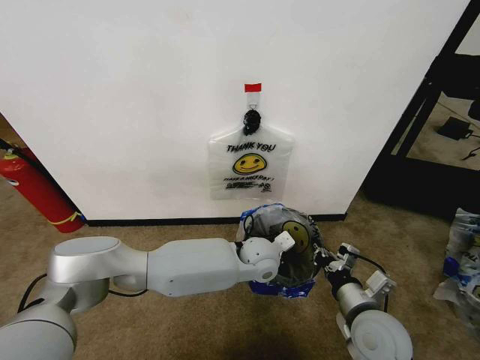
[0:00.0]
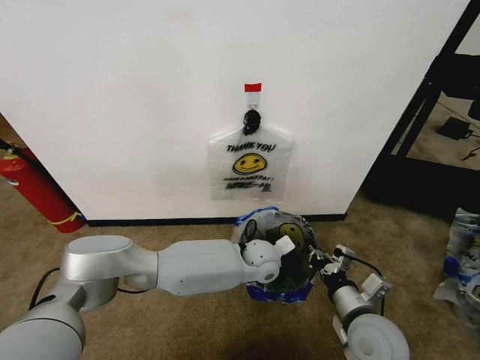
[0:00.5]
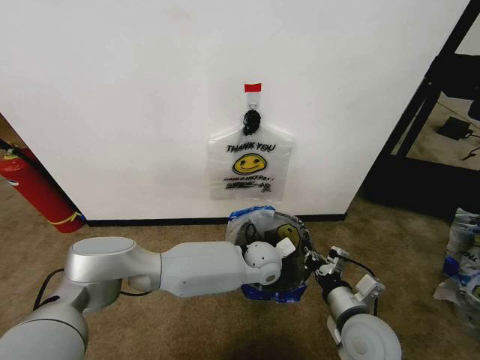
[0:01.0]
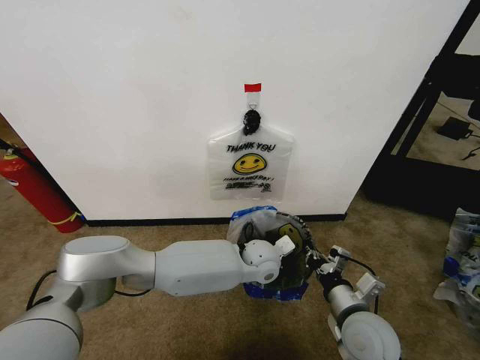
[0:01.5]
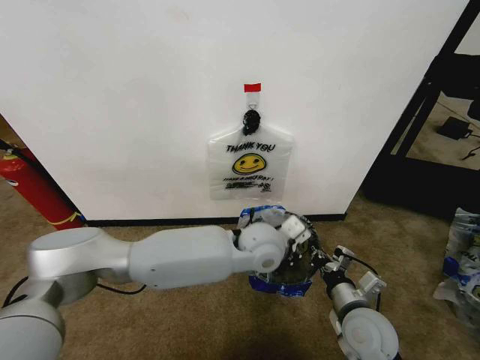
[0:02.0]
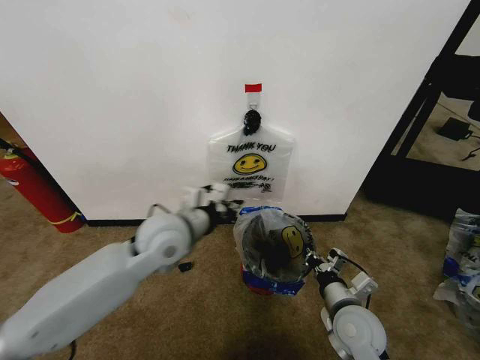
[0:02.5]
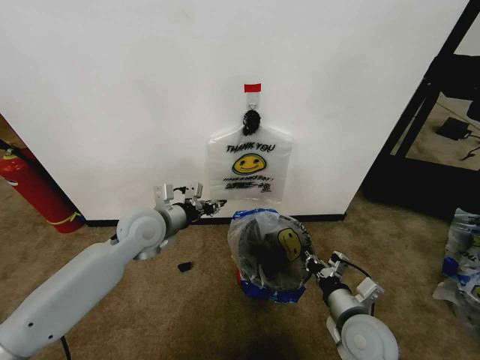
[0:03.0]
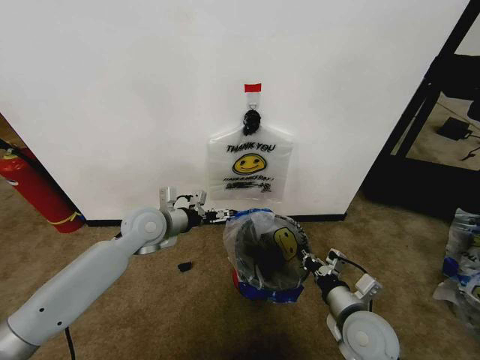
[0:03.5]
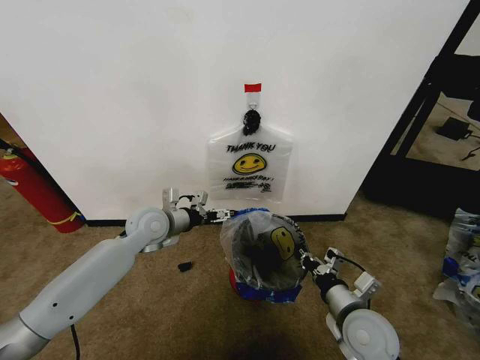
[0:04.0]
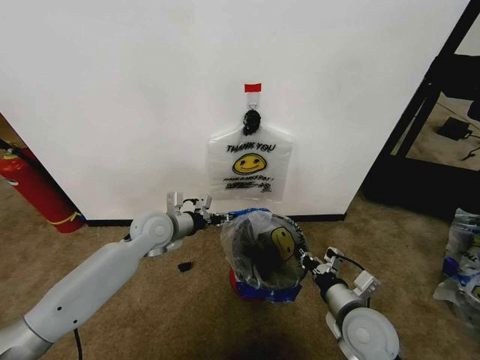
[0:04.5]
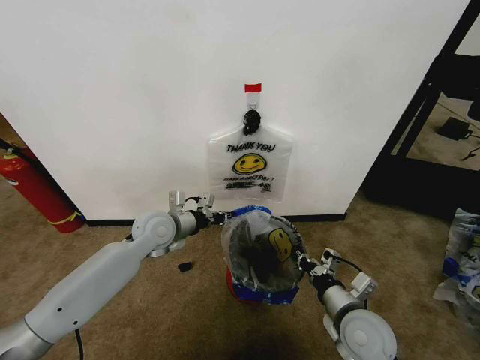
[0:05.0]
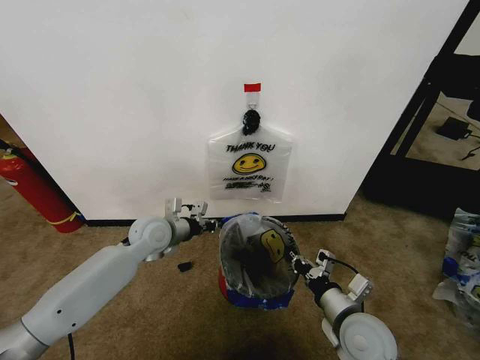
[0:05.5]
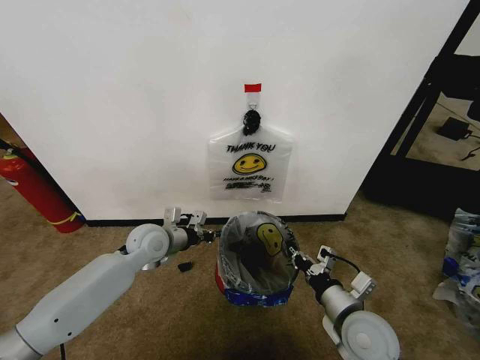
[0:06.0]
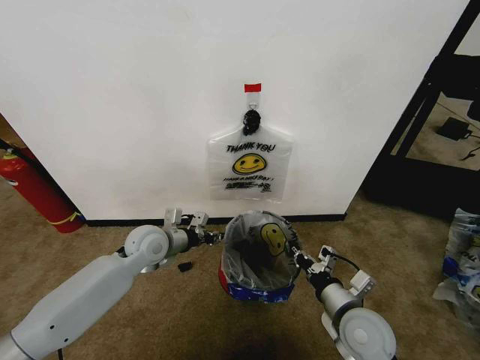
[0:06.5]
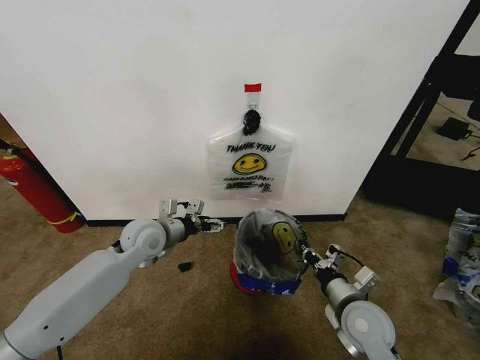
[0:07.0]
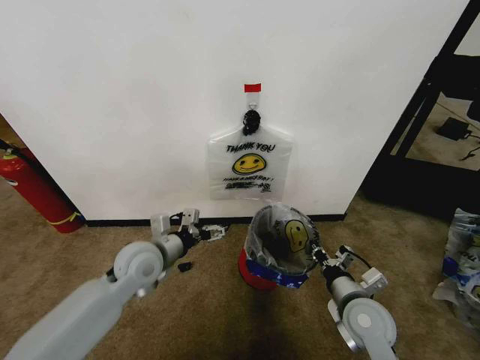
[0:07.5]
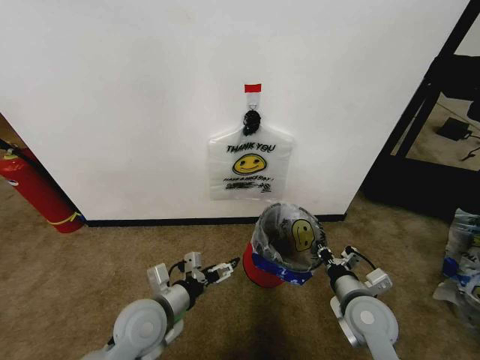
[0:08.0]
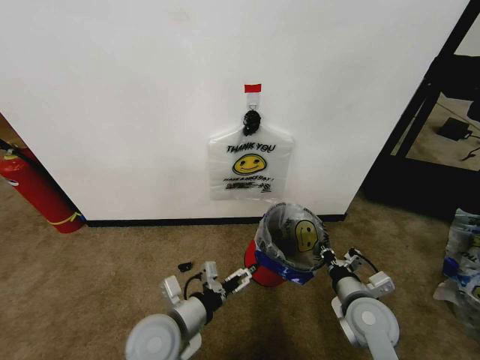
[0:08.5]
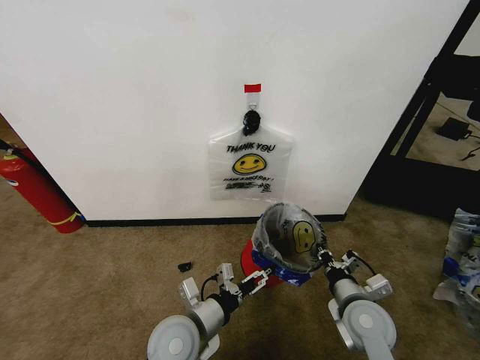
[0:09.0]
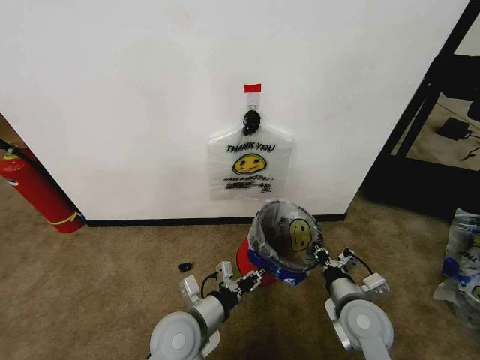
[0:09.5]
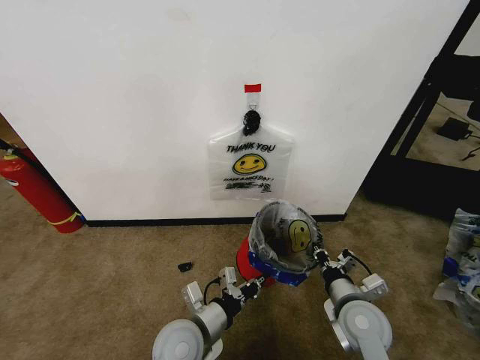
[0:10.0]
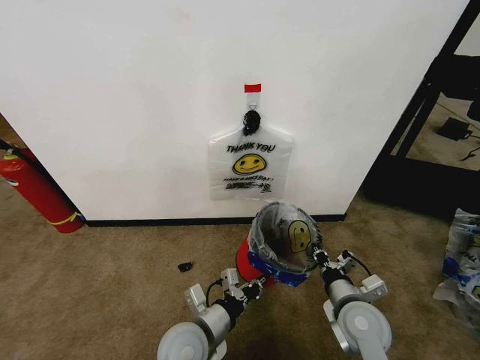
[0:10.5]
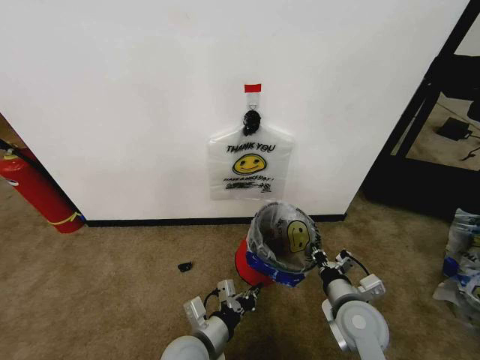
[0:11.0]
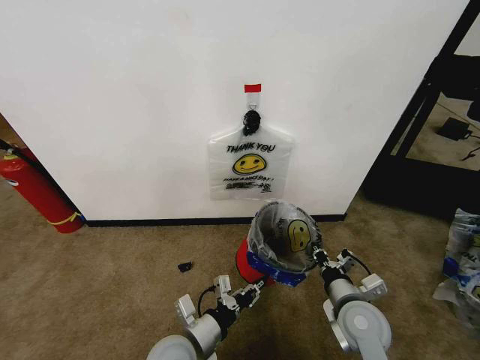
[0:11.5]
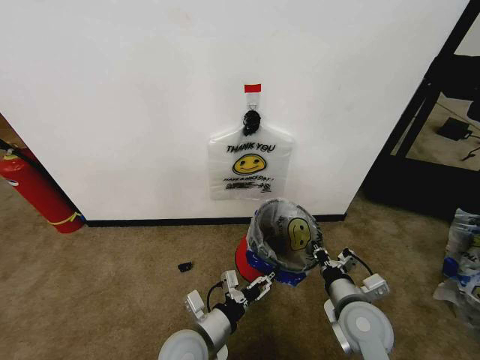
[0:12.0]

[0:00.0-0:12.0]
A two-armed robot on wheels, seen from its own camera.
Task of the whole recording: Pick up the garbage bag from the wall and place it over the trash bin.
0.0 to 2.0 s: The left gripper heads upward, covering approximately 10 cm.
2.0 to 4.0 s: The left gripper travels to the left by some 25 cm, and opens its fingers.
4.0 to 6.0 s: The left gripper closes up.
6.0 to 8.0 s: The left gripper travels backward by roughly 20 cm, and opens up.
8.0 to 10.0 s: The left gripper goes some 5 cm to the right, and closes its fingers.
10.0 to 12.0 s: The left gripper opens.

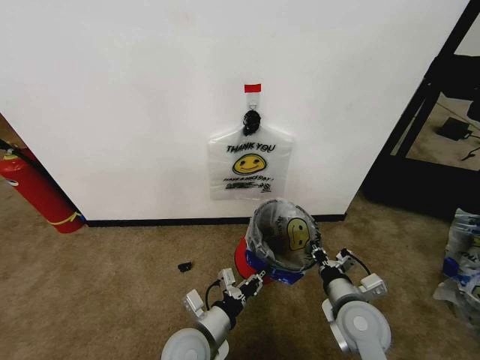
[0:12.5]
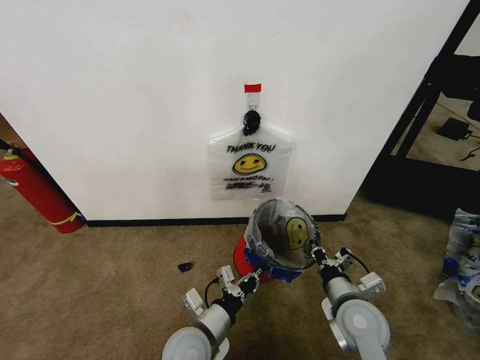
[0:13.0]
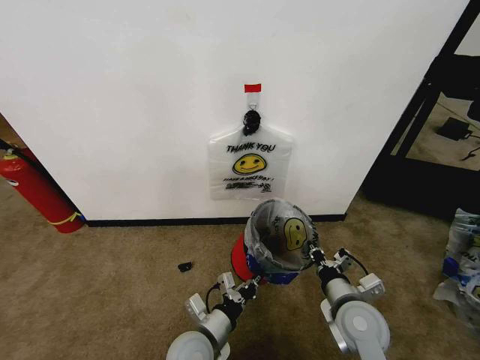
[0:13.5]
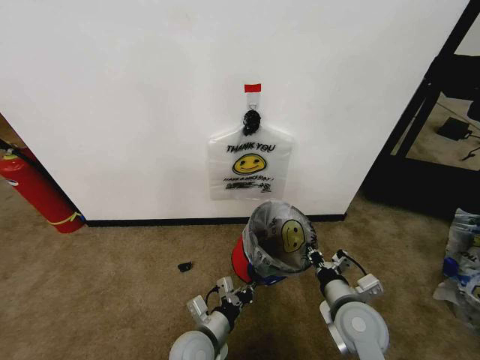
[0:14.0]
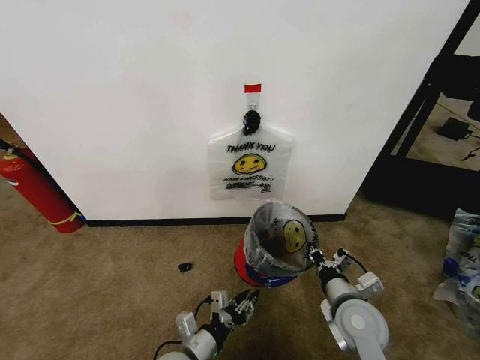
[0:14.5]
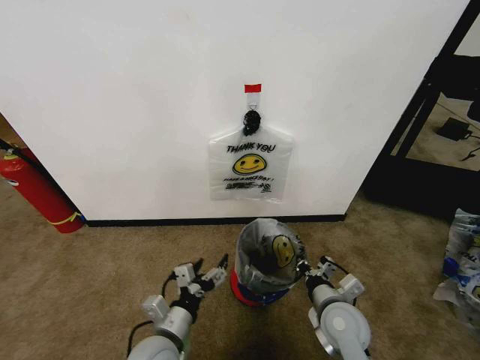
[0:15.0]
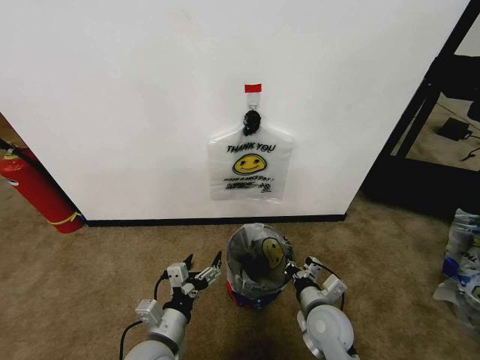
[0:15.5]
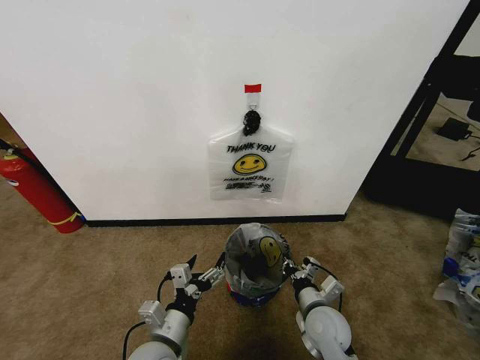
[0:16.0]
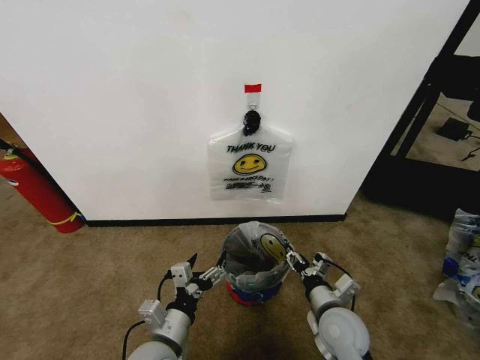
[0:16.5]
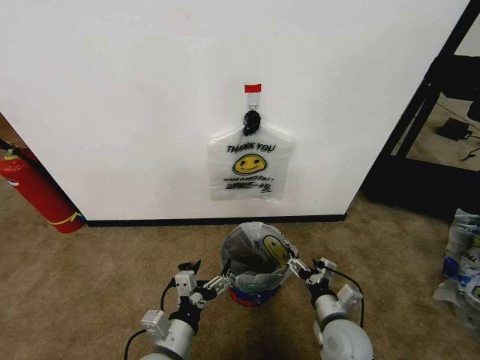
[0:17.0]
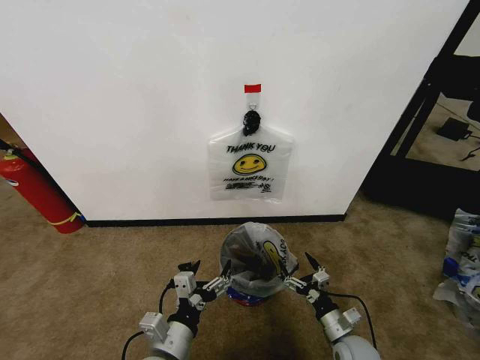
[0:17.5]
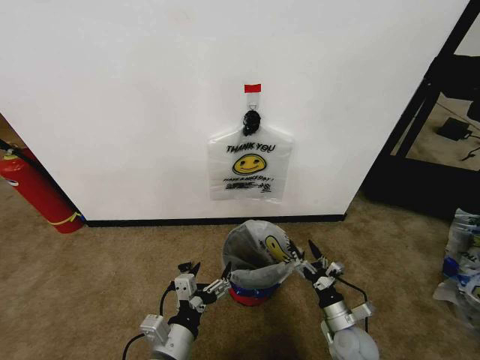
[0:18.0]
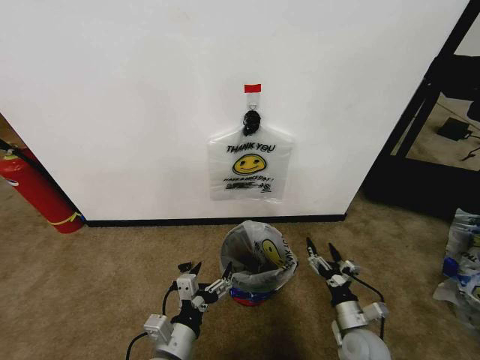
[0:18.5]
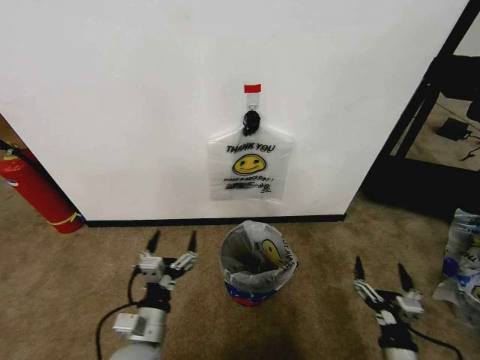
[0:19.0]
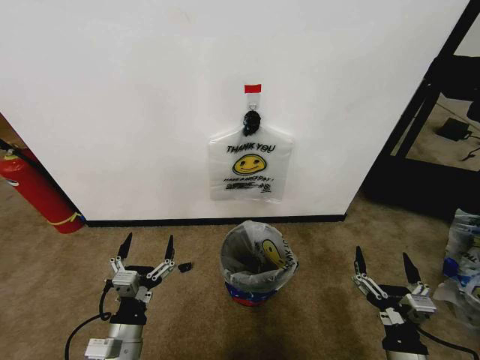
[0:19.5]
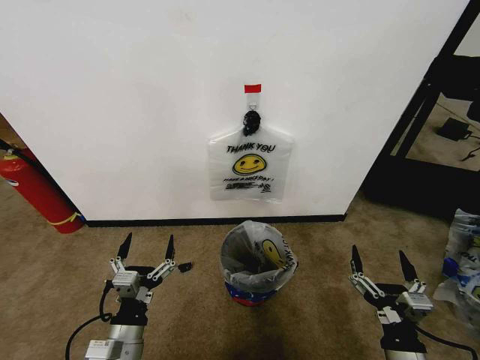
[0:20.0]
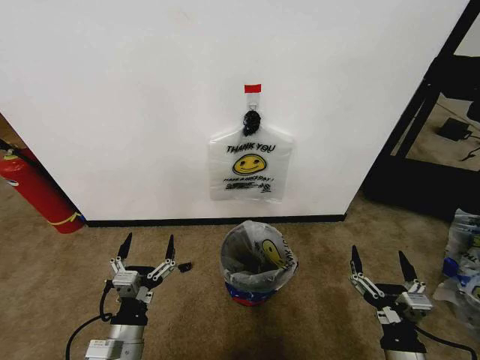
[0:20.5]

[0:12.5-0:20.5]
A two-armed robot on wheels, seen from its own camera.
Task of the whole recording: Pick up the garbage bag from the wall and place it over the trash bin.
12.5 to 14.5 s: The left gripper ends up some 5 cm from where it was.
14.5 to 16.5 s: The left gripper heads upward, covering roughly 5 cm, and opens up. The right gripper opens.
16.5 to 18.5 s: The right gripper shifts about 10 cm downward and to the right.
18.5 to 20.5 s: The right gripper shifts roughly 20 cm backward and upward, while the left gripper goes about 10 cm to the left.

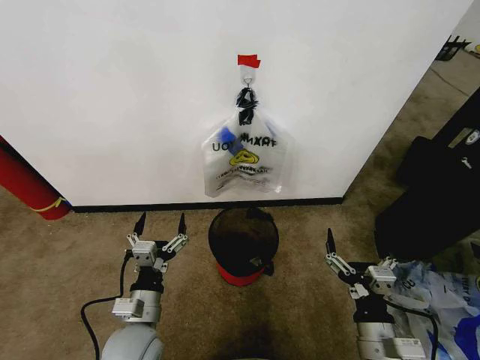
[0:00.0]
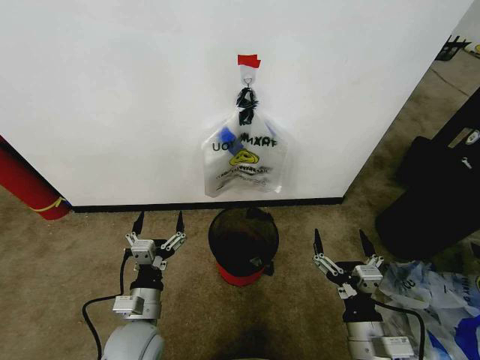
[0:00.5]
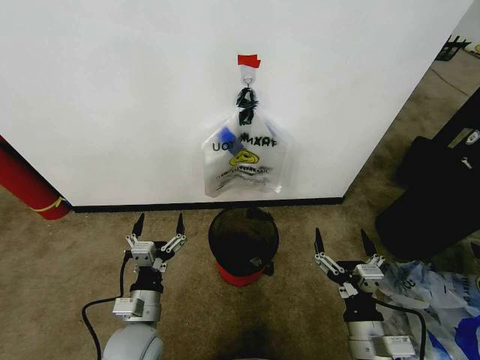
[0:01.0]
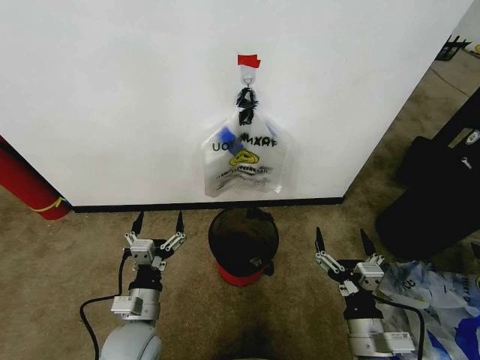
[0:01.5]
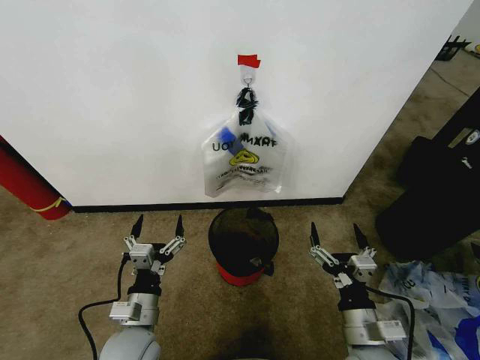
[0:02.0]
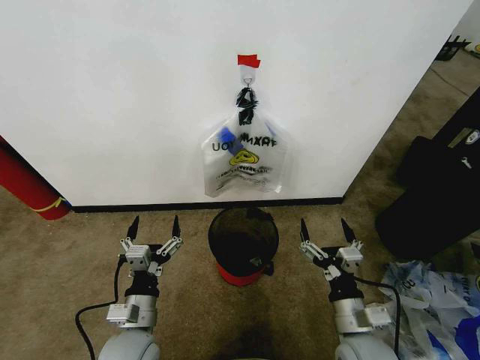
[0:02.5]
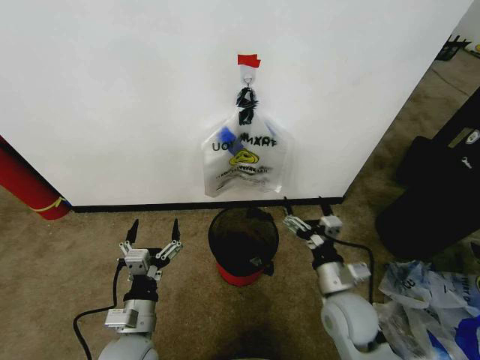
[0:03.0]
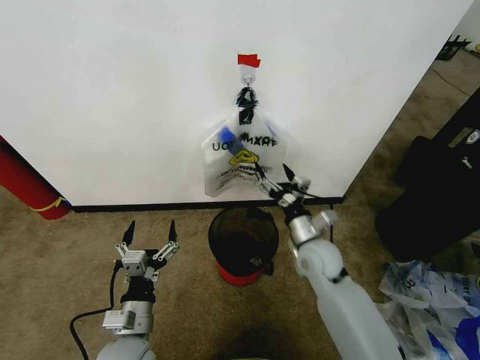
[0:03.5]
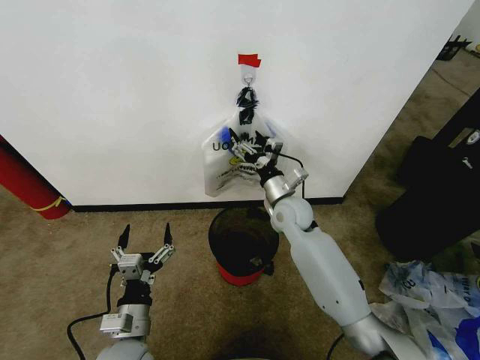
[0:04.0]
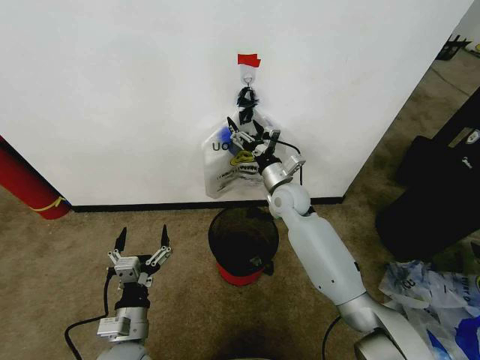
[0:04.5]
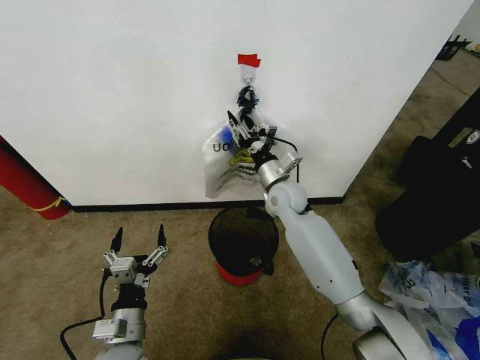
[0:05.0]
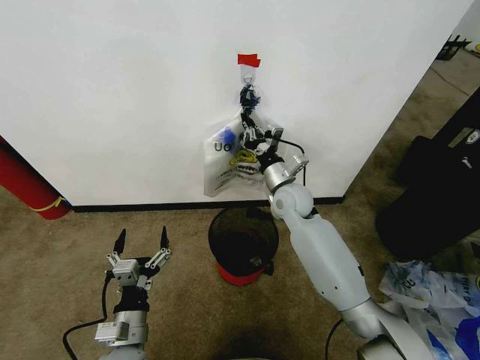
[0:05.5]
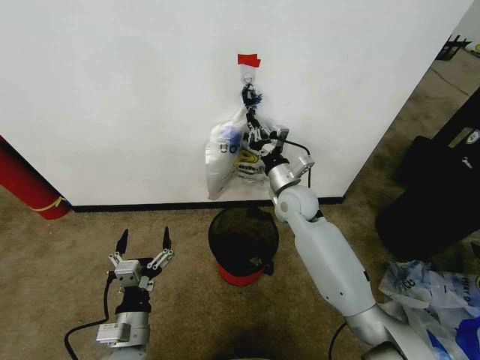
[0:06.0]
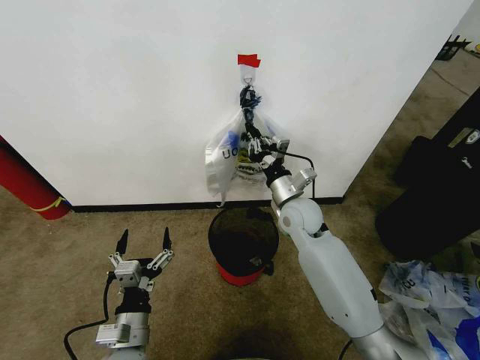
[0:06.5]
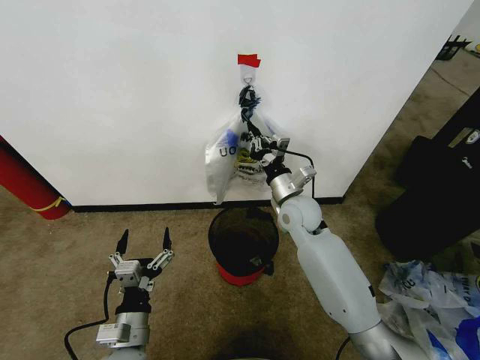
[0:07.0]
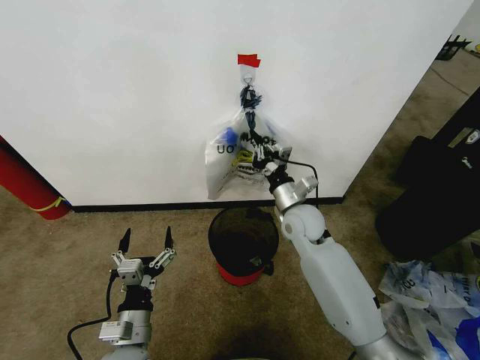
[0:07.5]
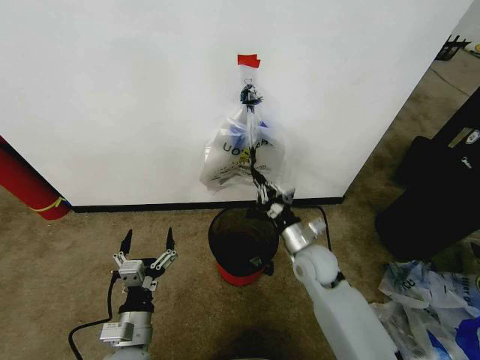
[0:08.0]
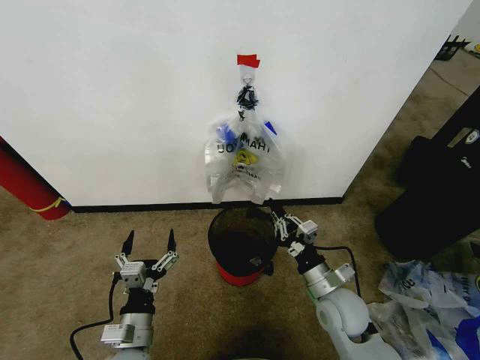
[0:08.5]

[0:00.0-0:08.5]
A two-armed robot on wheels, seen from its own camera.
Task of the whole recording: Pick up the garbage bag from the wall and place it over the trash bin.
2.0 to 4.0 s: The right gripper shifts about 30 cm forward.
4.0 to 6.5 s: The right gripper closes up.
6.5 to 8.5 s: The right gripper travels backward, downward and to the right by about 20 cm.
